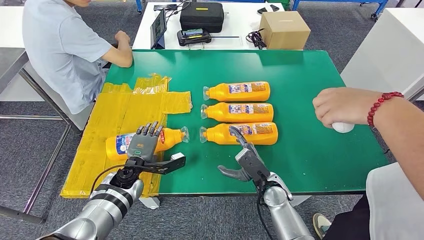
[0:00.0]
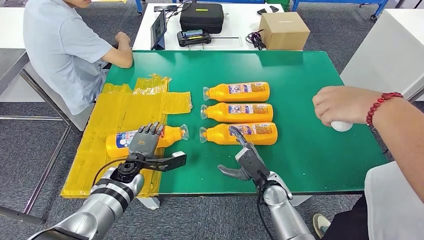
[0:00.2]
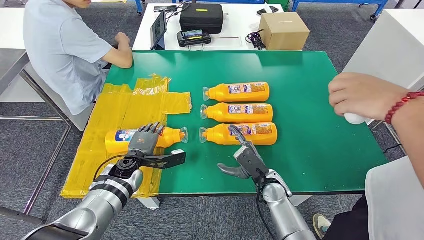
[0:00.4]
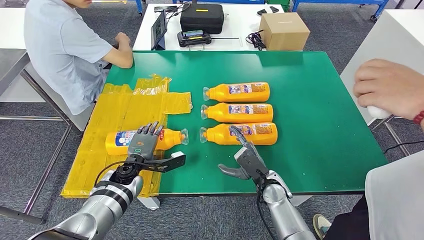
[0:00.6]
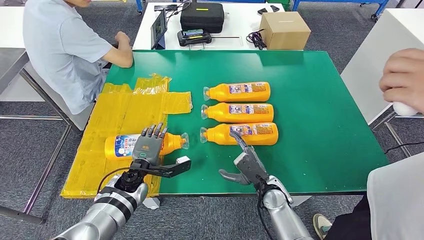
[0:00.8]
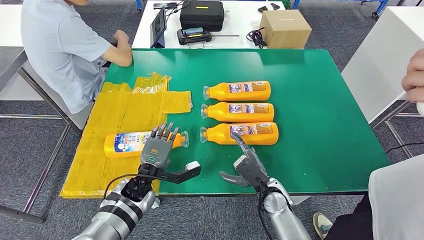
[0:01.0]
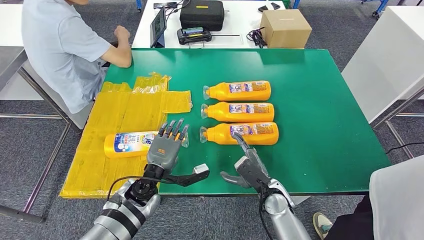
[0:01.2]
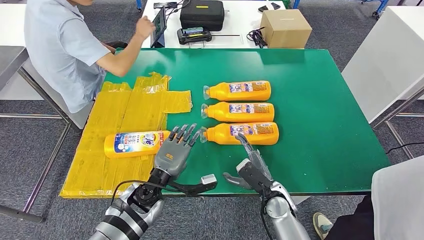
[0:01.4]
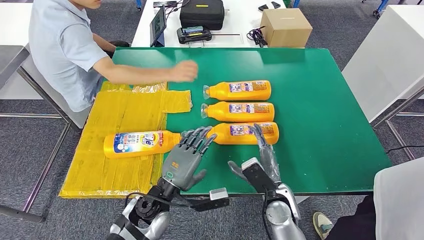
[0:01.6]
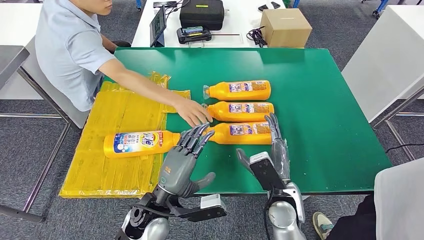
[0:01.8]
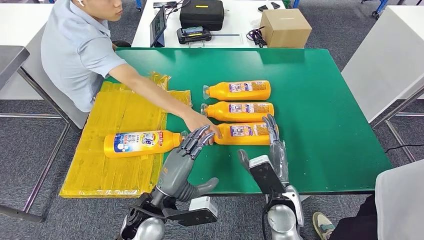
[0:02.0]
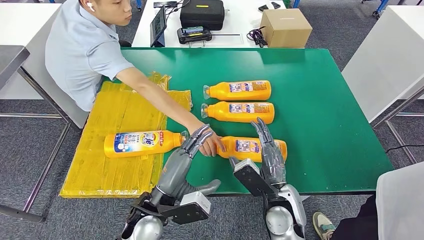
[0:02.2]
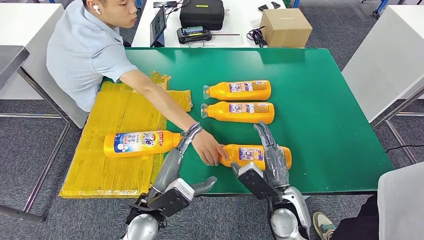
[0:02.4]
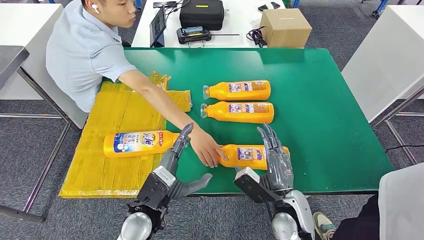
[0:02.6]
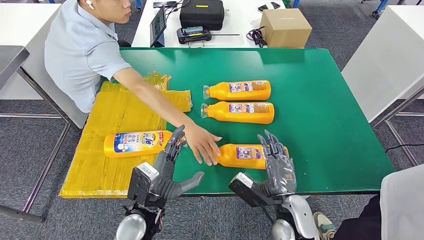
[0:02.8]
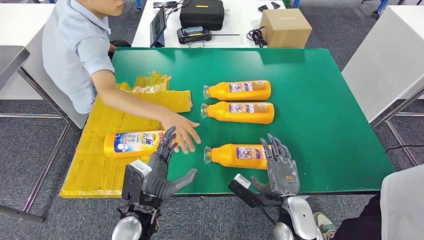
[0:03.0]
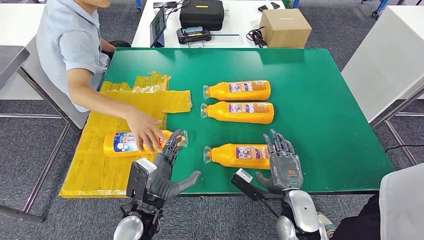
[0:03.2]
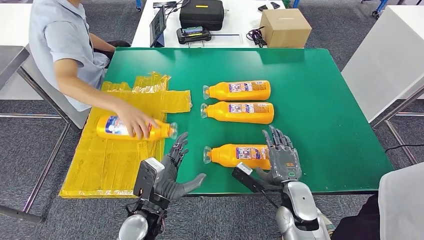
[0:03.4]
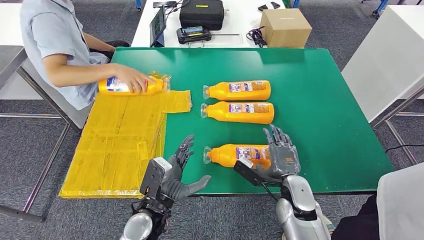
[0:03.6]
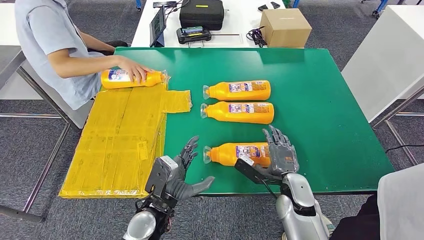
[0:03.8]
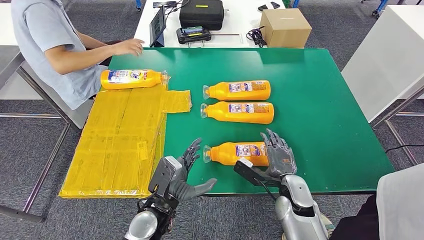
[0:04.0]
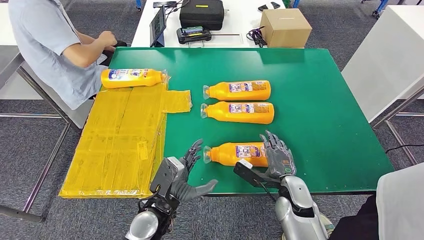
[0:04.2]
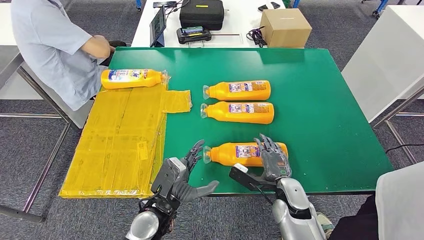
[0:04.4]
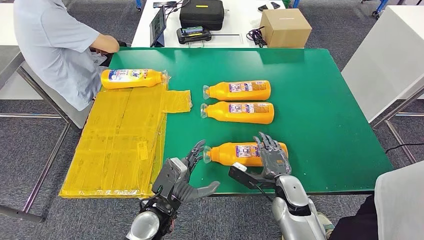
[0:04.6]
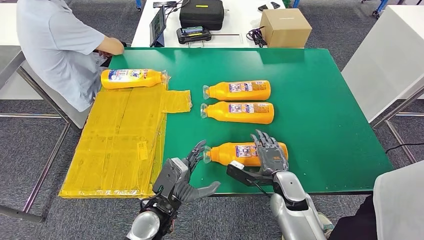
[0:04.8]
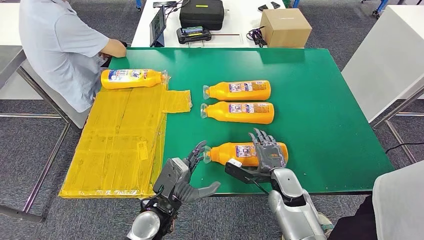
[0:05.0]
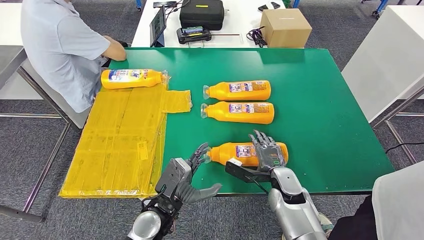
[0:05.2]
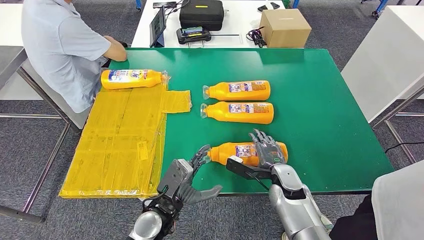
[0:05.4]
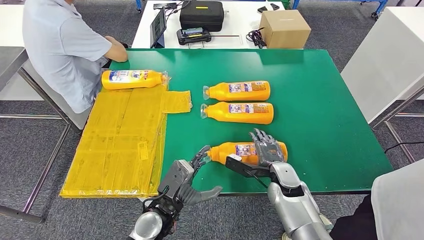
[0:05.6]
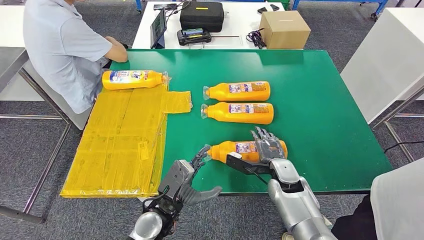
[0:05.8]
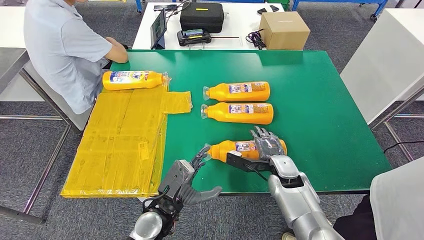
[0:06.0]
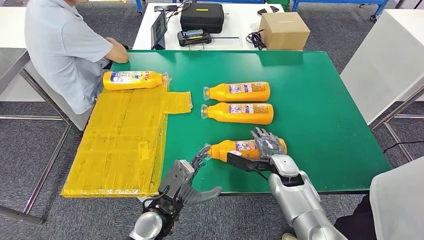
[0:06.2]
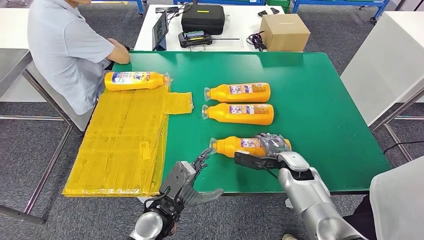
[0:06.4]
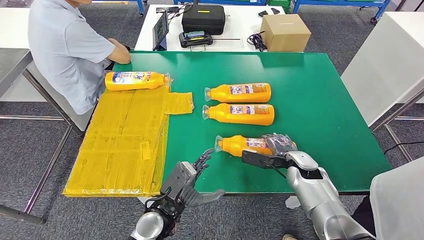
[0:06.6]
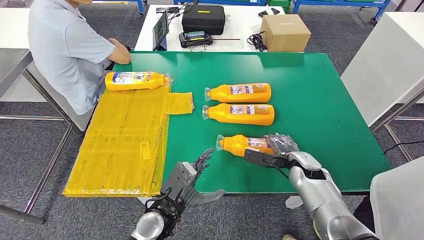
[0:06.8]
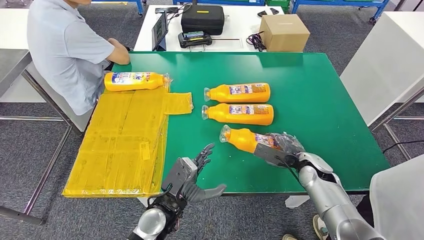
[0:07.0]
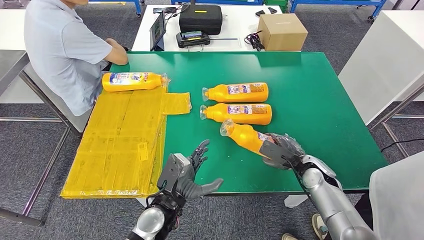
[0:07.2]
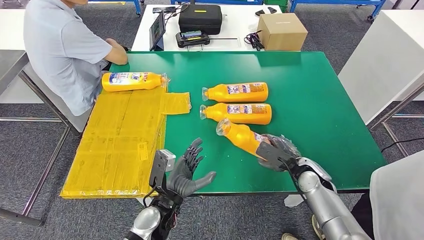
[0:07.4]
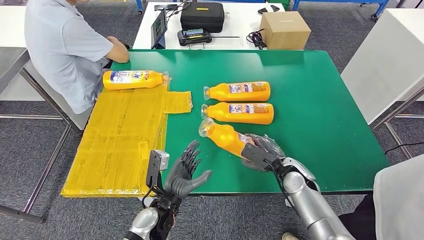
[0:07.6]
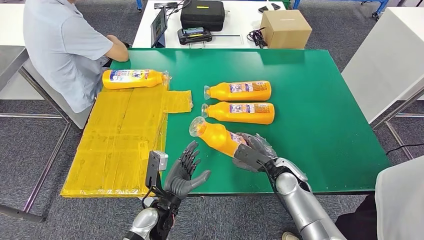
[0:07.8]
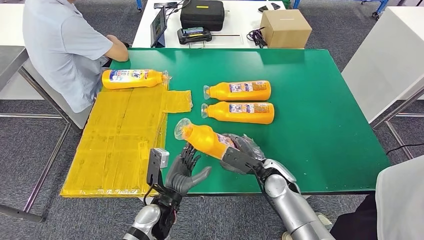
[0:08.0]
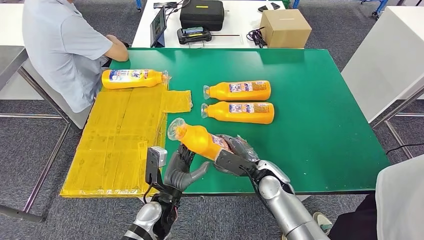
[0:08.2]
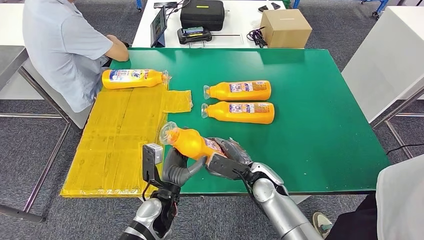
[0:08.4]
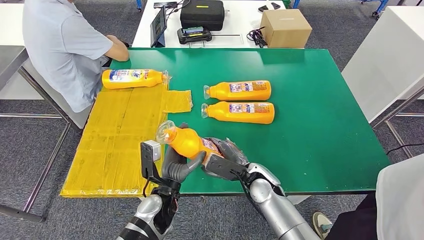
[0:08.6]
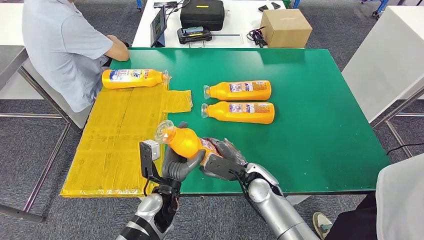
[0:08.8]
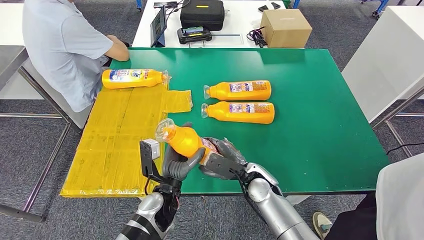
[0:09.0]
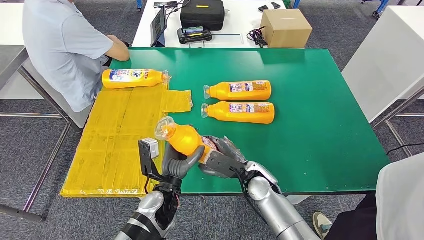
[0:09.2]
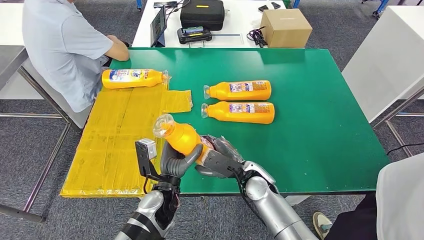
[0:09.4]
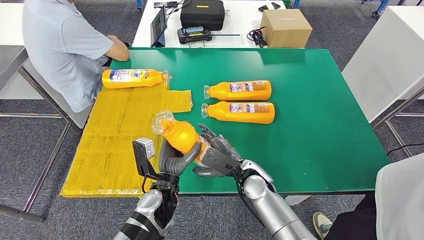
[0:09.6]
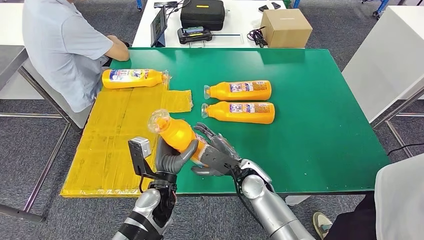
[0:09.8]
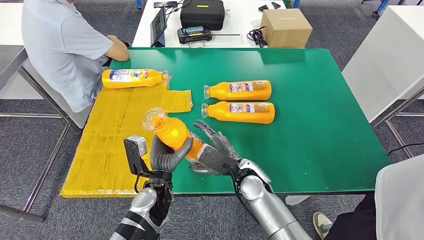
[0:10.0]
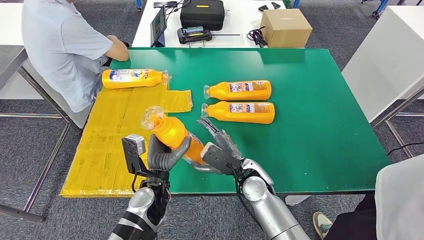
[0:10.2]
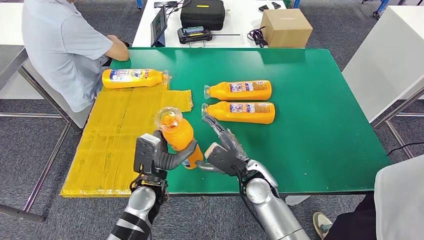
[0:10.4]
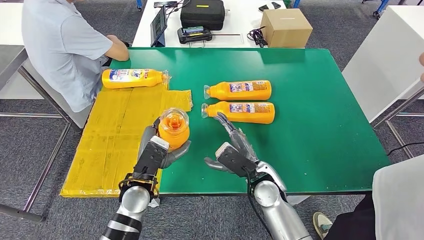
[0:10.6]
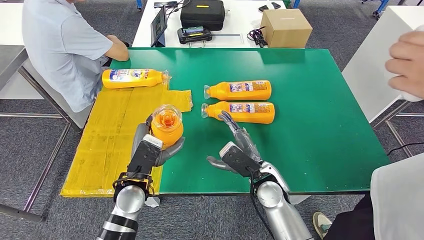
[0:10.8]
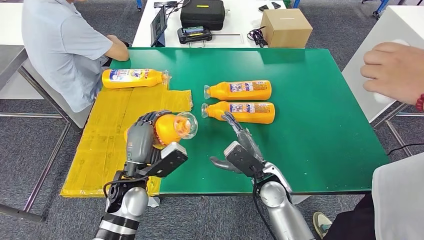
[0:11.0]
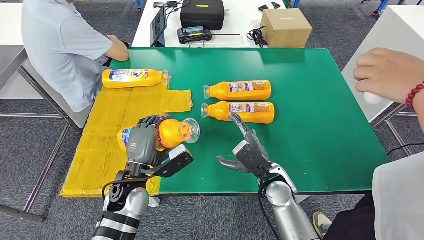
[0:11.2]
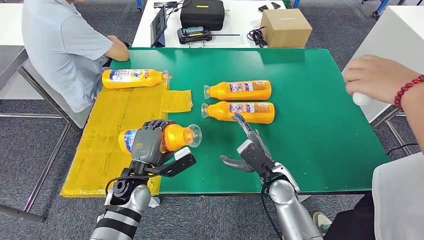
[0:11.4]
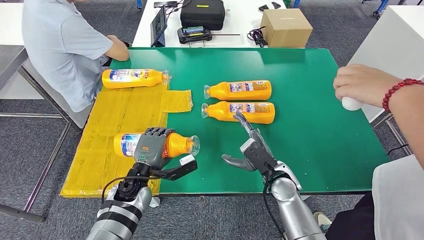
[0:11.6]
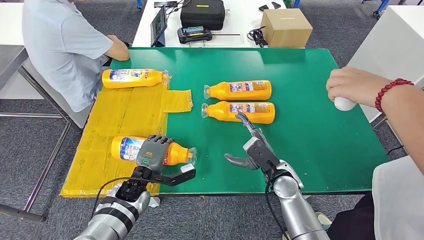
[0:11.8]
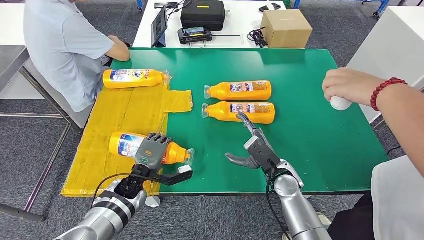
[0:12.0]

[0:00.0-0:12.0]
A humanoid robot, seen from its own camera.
Step, 0:00.0 to 0:08.2: Pick up the fast-moving consumer goods bottle from the table.
0:03.0 to 0:04.4: The right hand moves forward, some 5 cm.
0:04.4 to 0:06.0: The right hand shifts some 5 cm forward.
0:06.0 to 0:07.6: The right hand reaches roughly 10 cm to the right, then returns.
0:07.6 to 0:09.0: The right hand goes about 10 cm to the left.
0:10.4 to 0:12.0: The left hand travels downward and to the left by some 10 cm; the right hand travels to the right by some 10 cm.

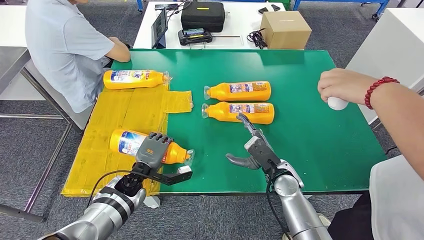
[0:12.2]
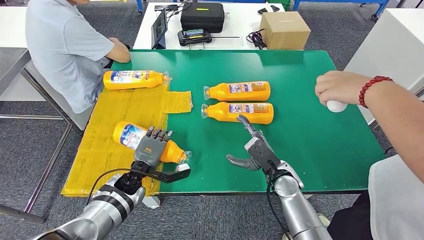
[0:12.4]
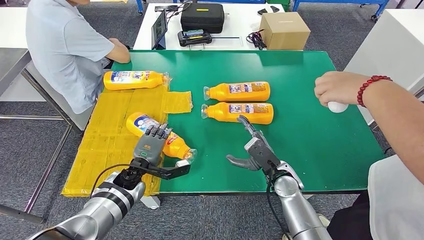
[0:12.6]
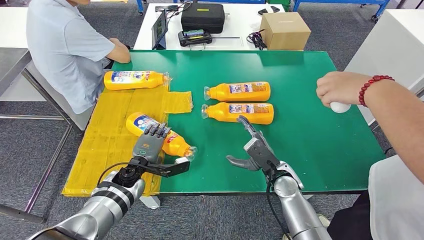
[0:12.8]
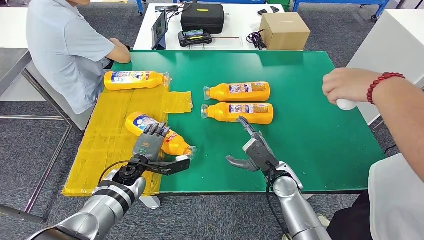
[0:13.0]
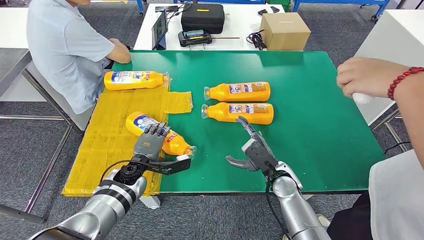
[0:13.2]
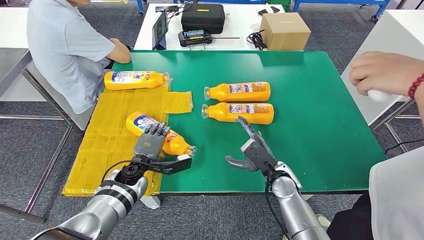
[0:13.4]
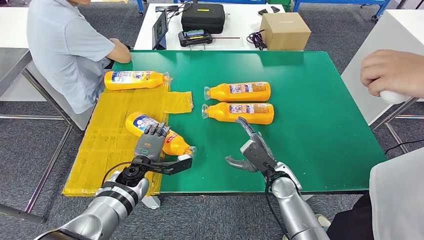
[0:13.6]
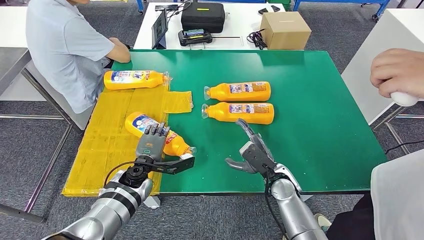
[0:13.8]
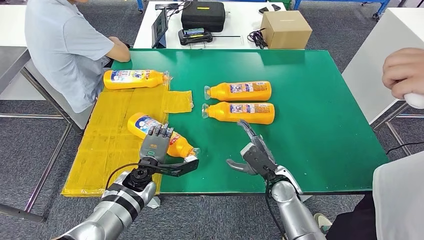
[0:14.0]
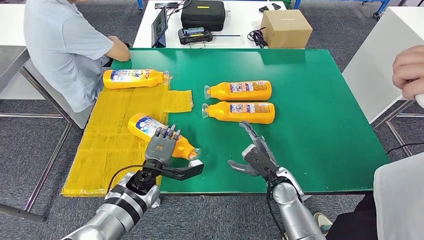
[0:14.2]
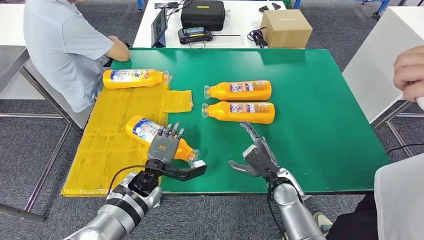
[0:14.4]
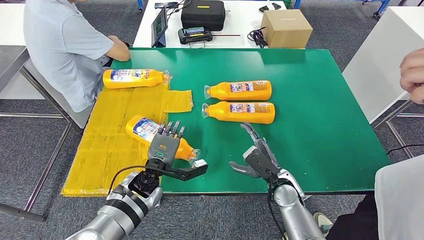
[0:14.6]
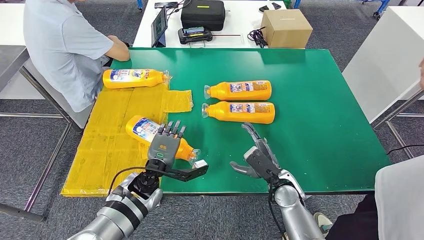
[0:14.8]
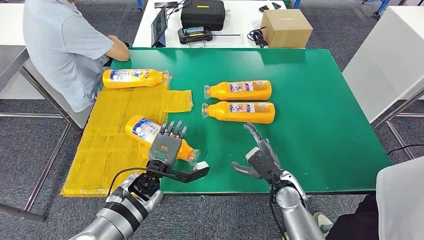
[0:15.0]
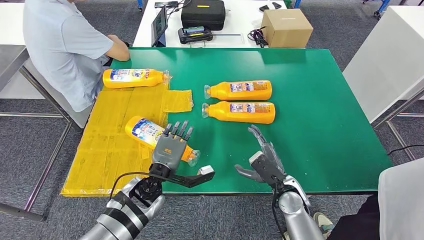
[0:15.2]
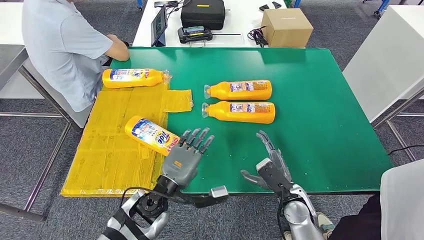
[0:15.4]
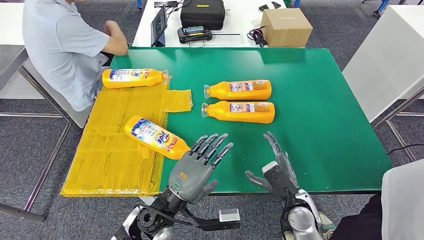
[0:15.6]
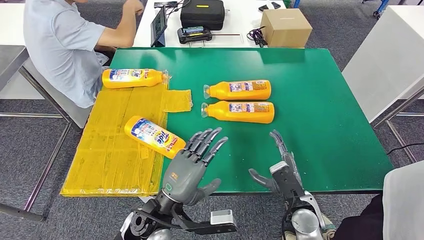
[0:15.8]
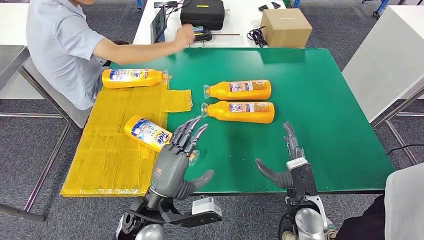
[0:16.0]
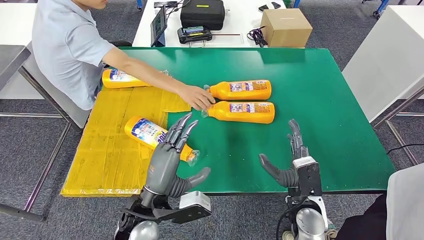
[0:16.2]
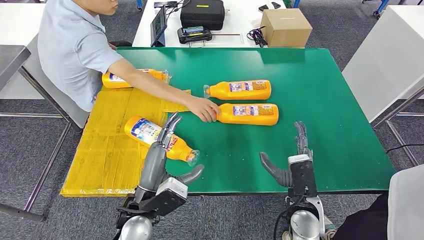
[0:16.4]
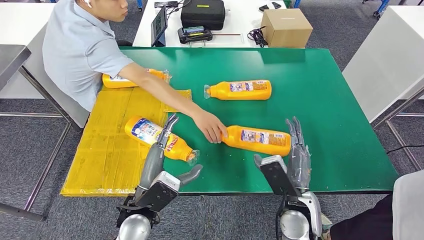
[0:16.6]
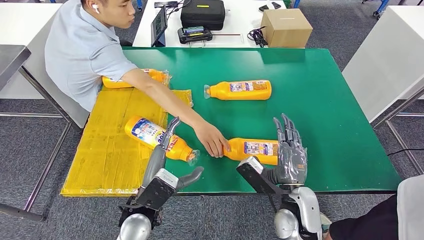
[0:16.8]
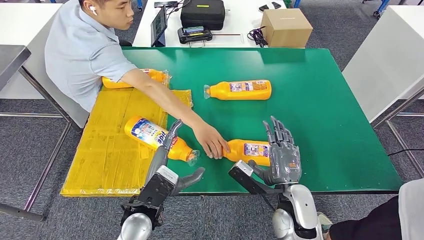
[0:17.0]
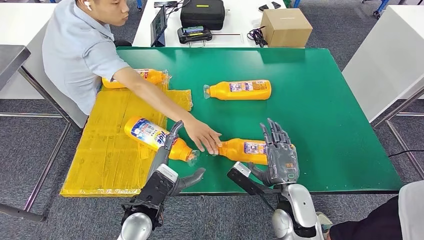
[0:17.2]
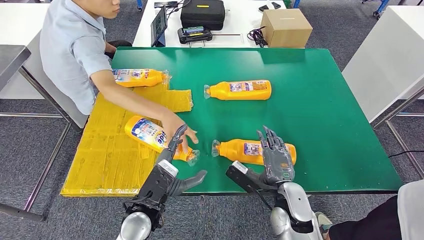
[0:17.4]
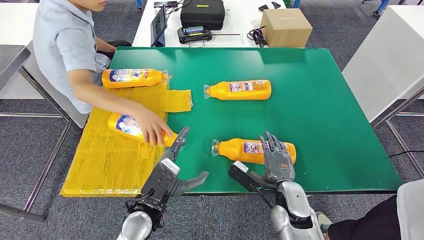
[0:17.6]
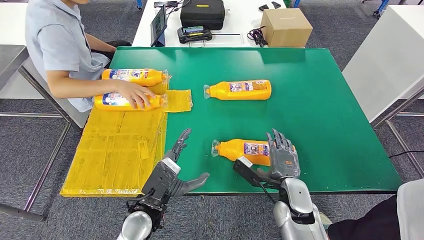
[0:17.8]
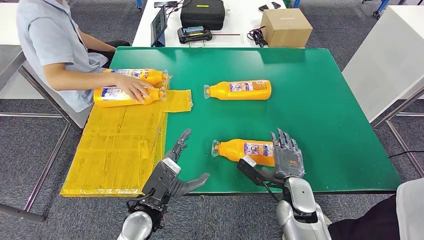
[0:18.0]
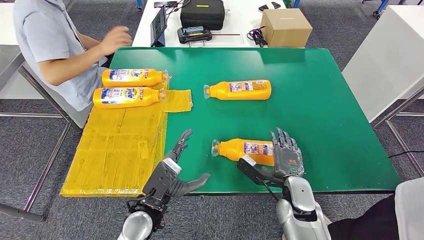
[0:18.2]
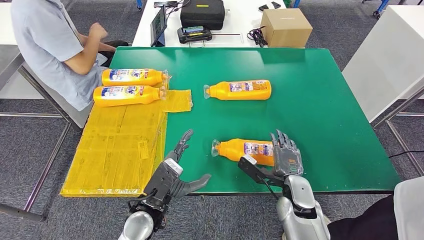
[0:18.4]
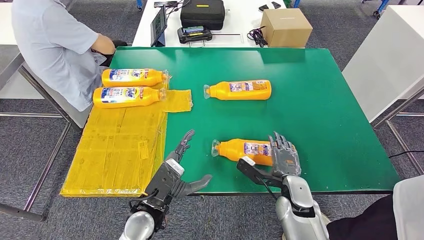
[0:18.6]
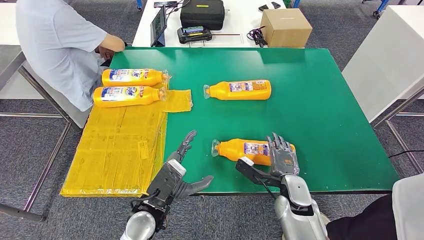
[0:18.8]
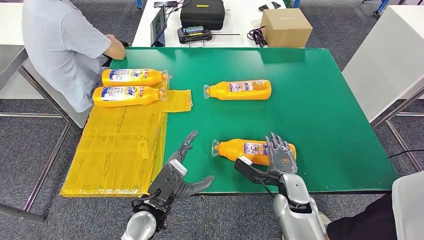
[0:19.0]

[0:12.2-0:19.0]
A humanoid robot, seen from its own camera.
0:12.2 to 0:13.6: There are only small adjustments of the hands.
0:15.0 to 0:16.2: The left hand shifts roughly 10 cm backward and upward. Meanwhile the right hand is displaced backward by roughly 5 cm.
0:17.6 to 0:19.0: The hands stay close to where they were, moving slightly.
